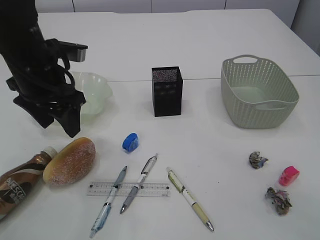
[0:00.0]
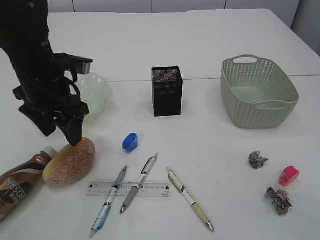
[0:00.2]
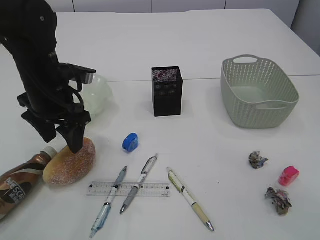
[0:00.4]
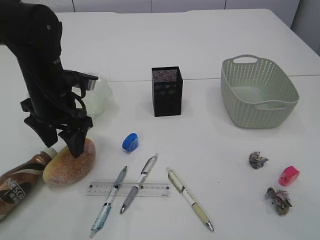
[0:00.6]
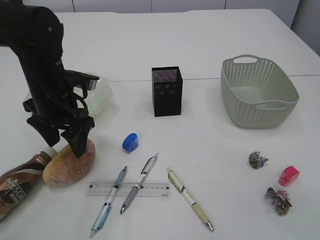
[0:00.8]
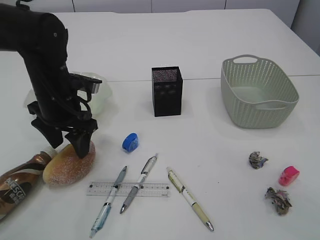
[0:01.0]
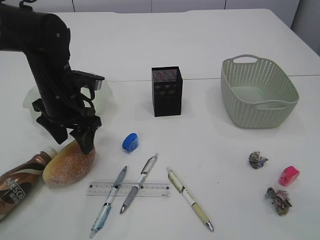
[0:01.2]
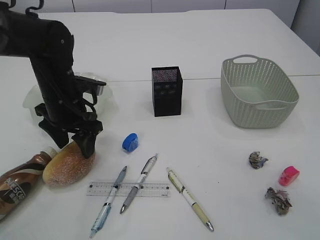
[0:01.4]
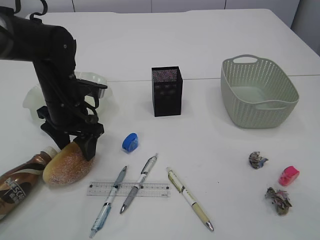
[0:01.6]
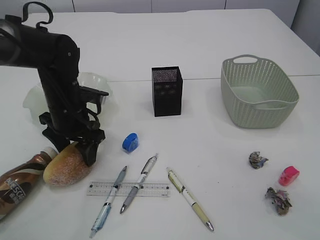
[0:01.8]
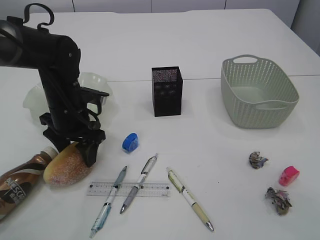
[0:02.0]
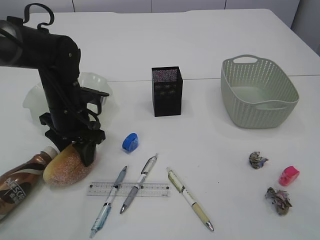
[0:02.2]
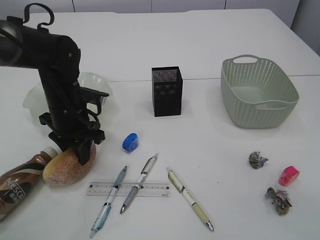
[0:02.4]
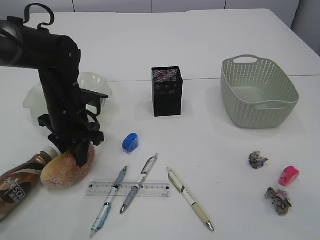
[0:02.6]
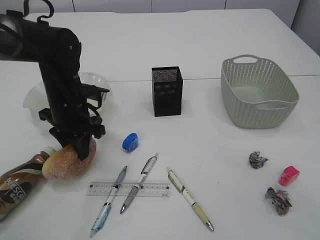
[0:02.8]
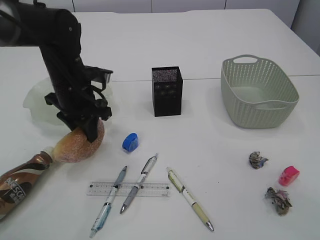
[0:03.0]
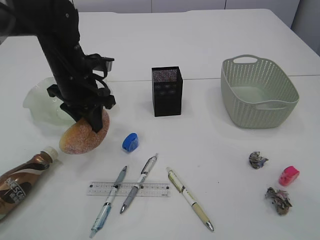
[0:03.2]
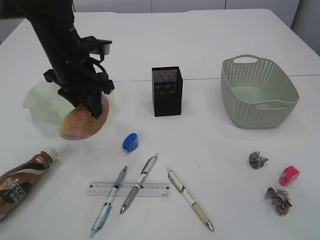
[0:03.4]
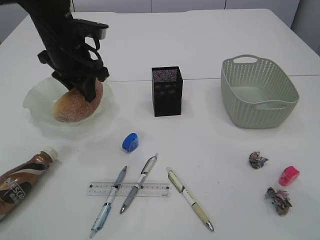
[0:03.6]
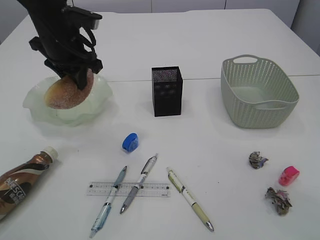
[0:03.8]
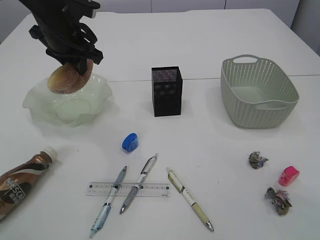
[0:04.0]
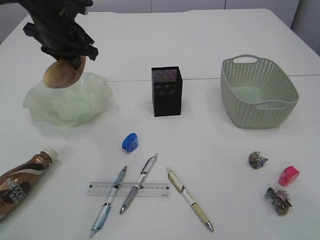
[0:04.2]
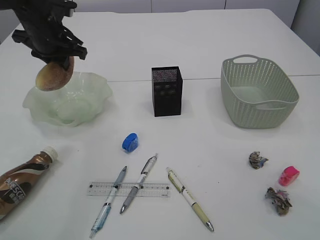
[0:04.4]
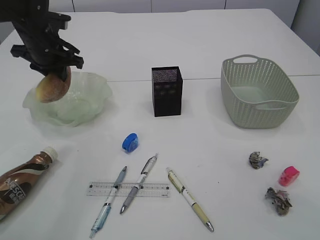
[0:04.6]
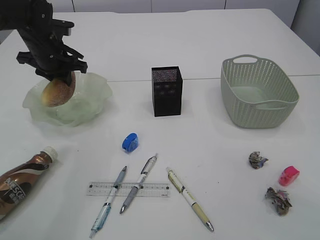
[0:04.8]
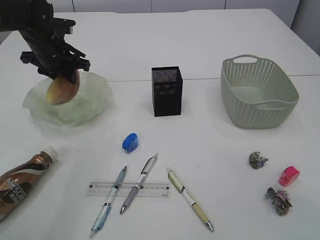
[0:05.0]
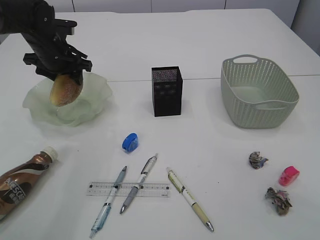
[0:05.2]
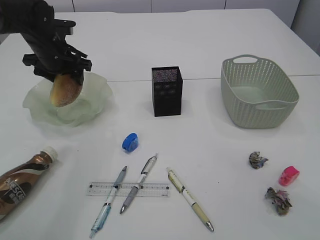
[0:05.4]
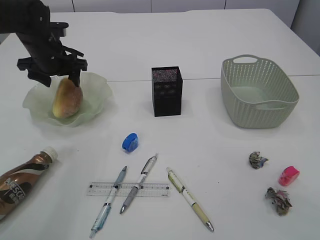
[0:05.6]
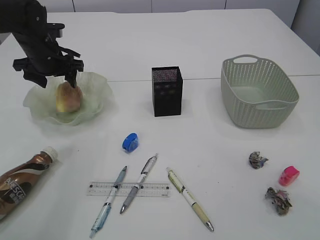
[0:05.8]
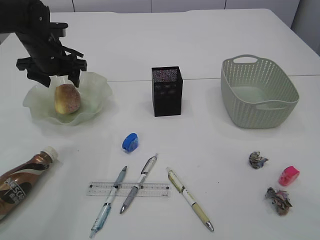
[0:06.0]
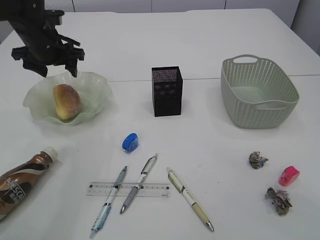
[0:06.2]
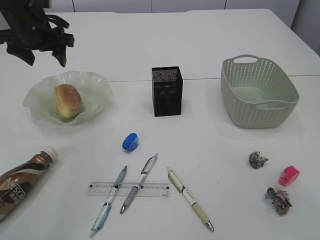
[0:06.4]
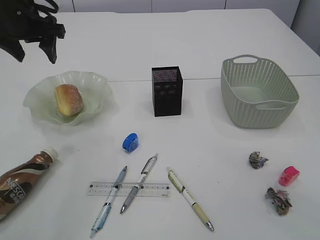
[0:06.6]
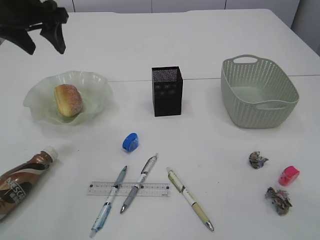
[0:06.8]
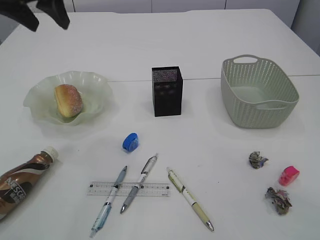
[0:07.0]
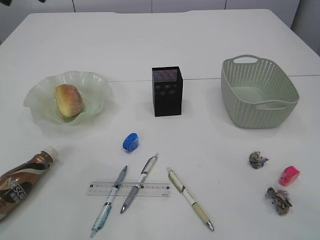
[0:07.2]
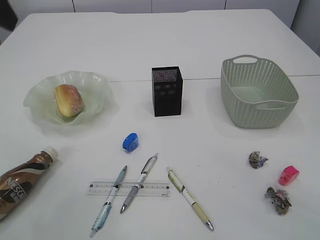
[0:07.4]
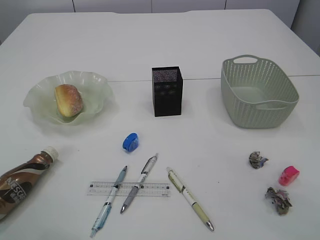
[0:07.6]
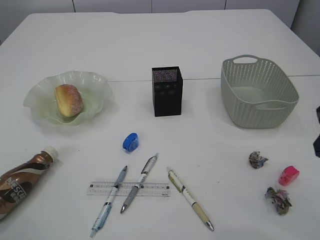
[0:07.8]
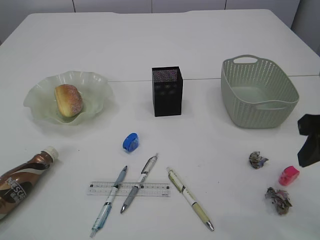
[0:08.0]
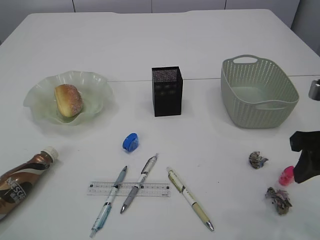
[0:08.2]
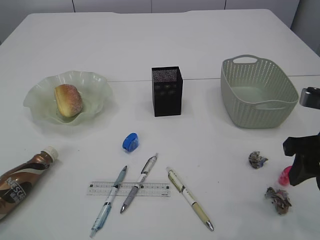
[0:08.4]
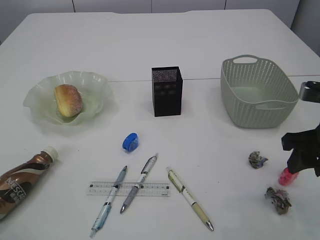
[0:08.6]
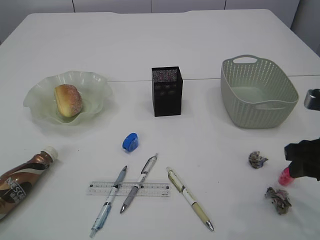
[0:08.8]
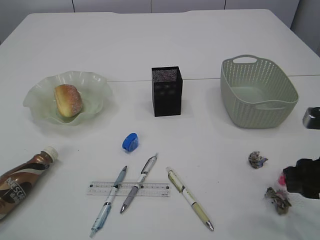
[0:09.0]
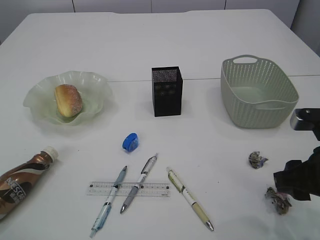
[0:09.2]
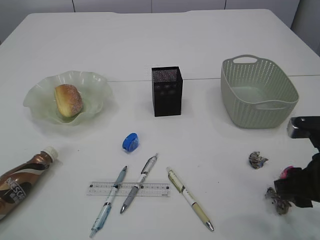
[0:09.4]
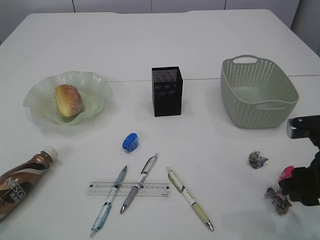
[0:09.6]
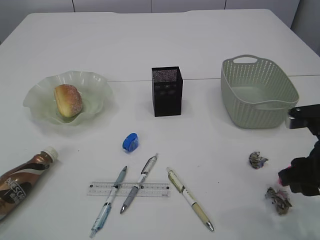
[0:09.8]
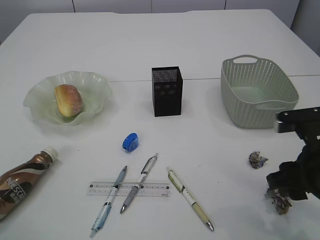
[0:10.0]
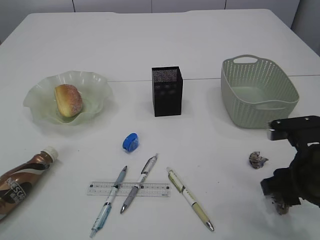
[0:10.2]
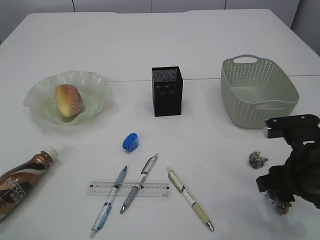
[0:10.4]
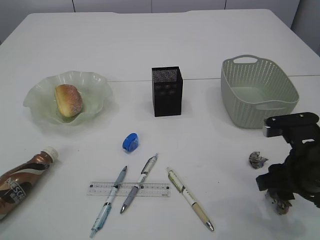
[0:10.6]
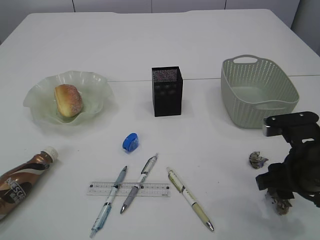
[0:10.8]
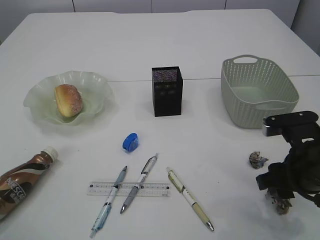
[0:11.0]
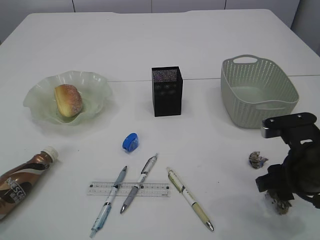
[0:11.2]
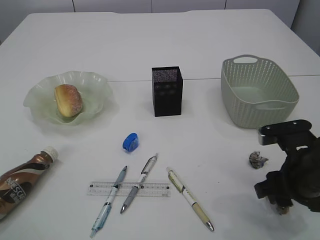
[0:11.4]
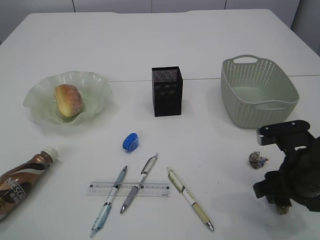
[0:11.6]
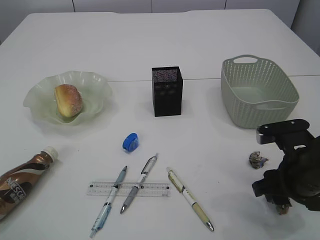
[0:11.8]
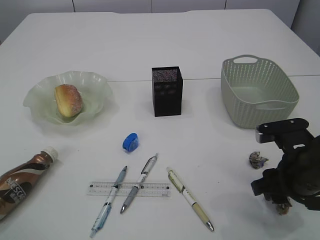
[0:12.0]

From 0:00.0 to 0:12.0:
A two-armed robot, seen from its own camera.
Step, from 0:03.6 to 0:06.6: place the bread in the plate.
From 0:00.0 to 0:01.6: The left gripper heads downward, covering approximately 10 cm.
From 0:01.6 to 0:03.0: The left gripper closes.
From 0:03.0 to 0:04.4: The left gripper moves upward, forward and to the left, approximately 10 cm.
From 0:04.4 to 0:06.0: The left gripper is displaced downward by some 5 cm, and opens.
From 0:06.0 to 0:07.6: The left gripper shifts about 35 cm backward and upward.
From 0:07.6 to 0:09.0: The right gripper is displaced downward by about 15 cm.
From 0:09.0 to 0:10.4: The grippers stay close to where they were, moving slightly.
From 0:10.4 to 0:12.0: The grippers move only a little.

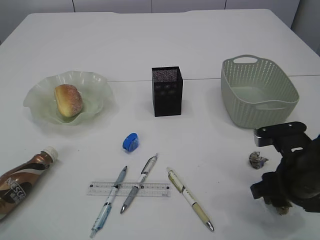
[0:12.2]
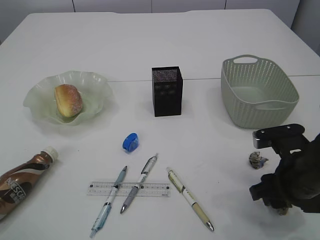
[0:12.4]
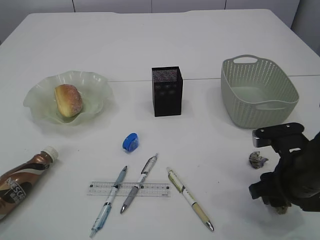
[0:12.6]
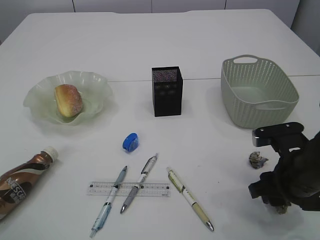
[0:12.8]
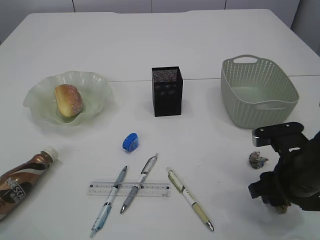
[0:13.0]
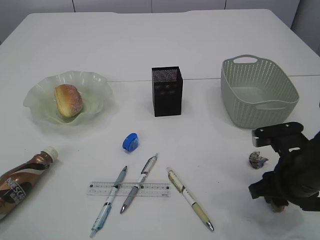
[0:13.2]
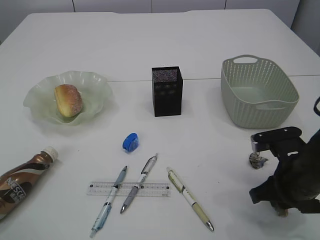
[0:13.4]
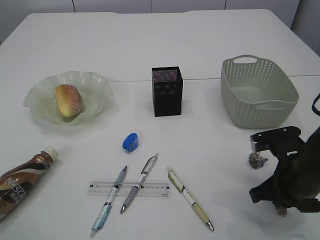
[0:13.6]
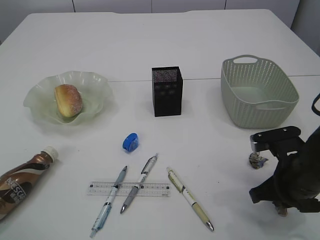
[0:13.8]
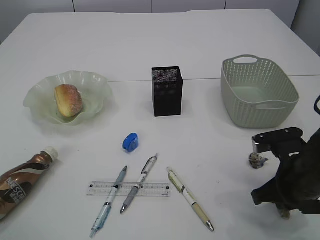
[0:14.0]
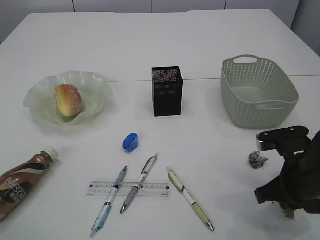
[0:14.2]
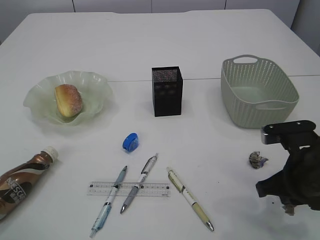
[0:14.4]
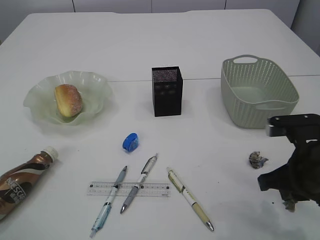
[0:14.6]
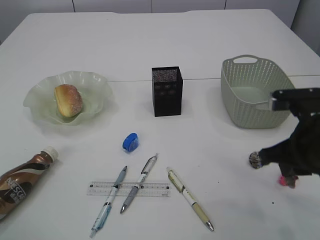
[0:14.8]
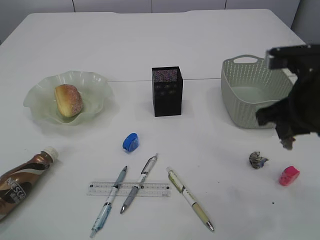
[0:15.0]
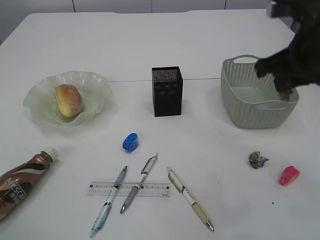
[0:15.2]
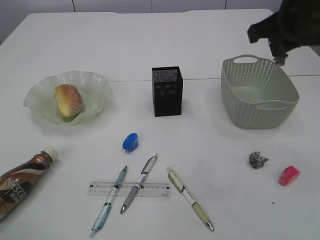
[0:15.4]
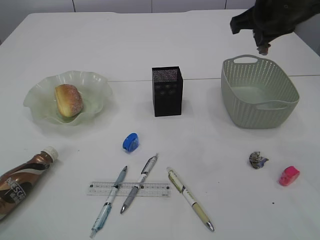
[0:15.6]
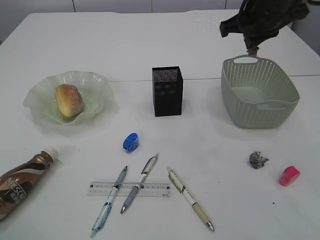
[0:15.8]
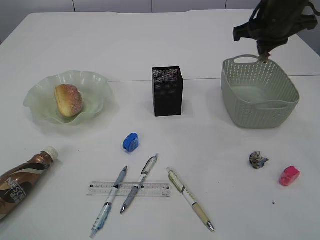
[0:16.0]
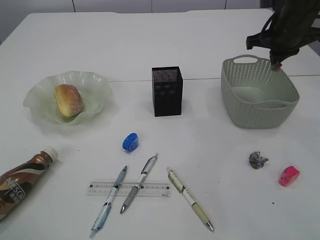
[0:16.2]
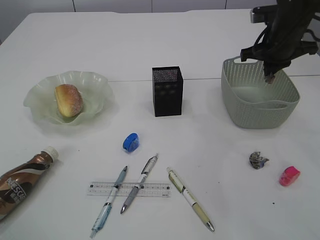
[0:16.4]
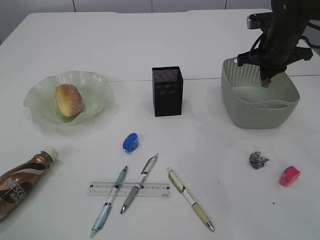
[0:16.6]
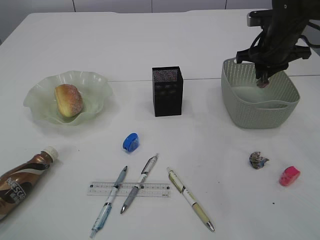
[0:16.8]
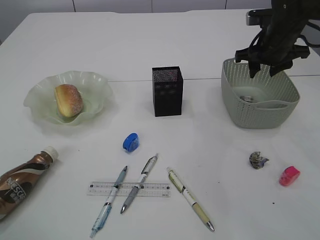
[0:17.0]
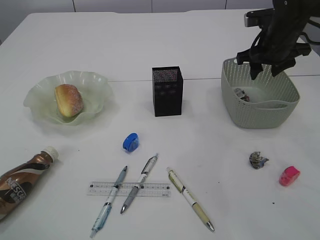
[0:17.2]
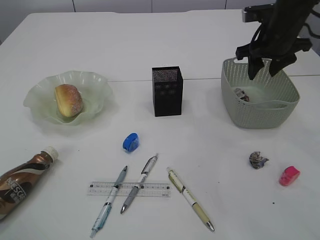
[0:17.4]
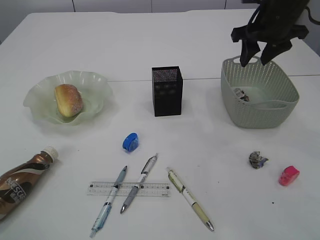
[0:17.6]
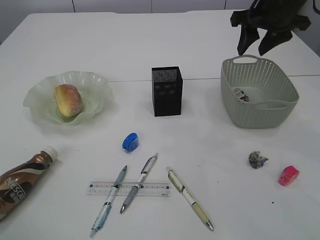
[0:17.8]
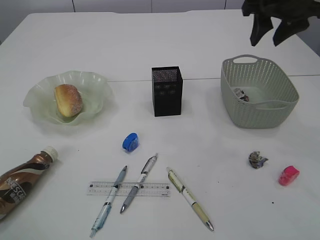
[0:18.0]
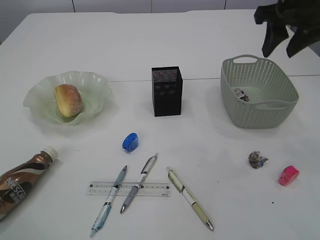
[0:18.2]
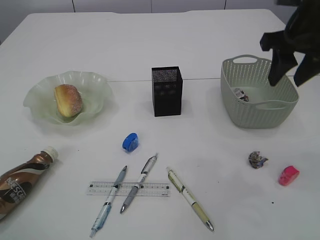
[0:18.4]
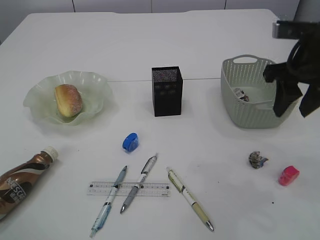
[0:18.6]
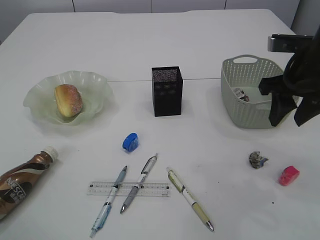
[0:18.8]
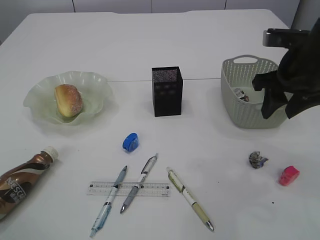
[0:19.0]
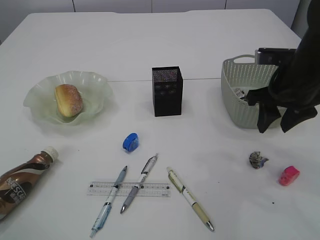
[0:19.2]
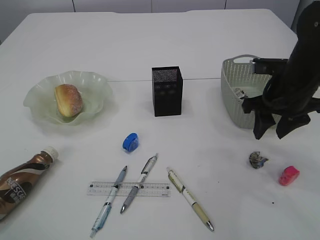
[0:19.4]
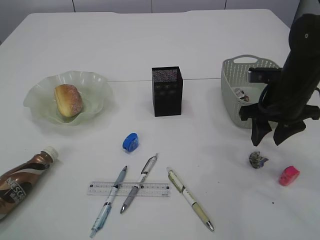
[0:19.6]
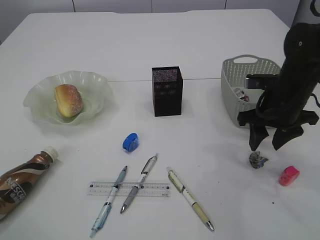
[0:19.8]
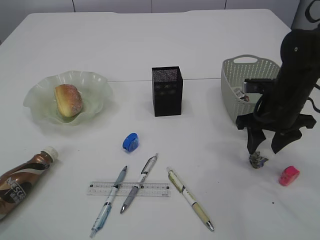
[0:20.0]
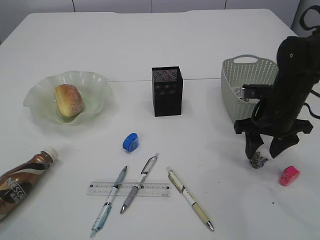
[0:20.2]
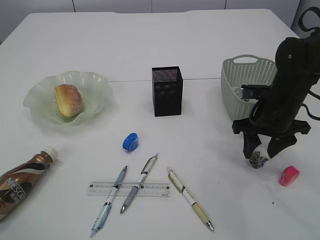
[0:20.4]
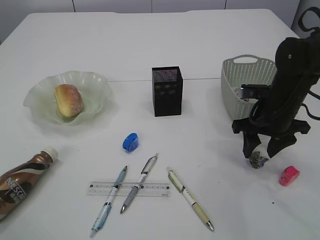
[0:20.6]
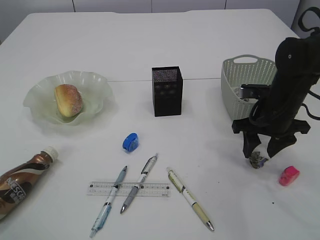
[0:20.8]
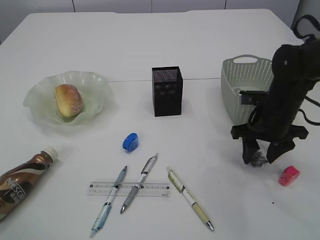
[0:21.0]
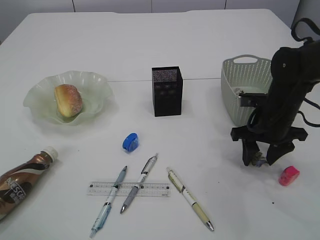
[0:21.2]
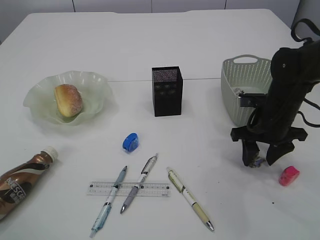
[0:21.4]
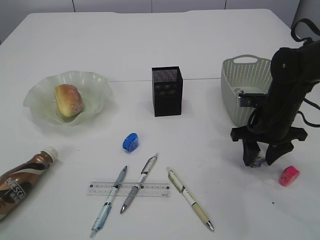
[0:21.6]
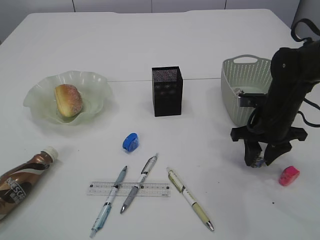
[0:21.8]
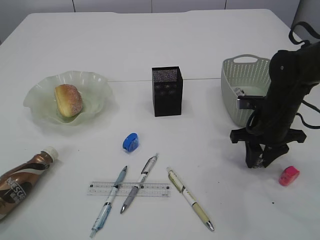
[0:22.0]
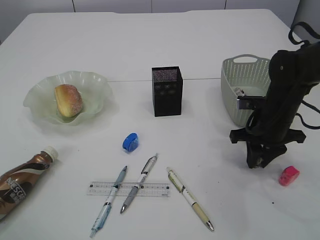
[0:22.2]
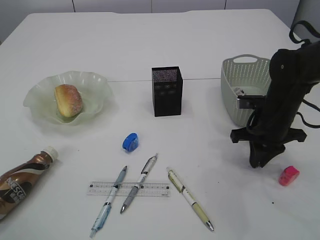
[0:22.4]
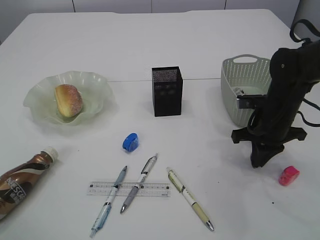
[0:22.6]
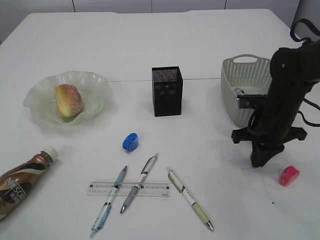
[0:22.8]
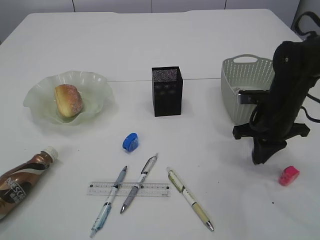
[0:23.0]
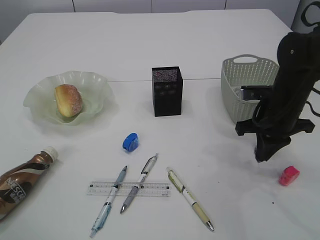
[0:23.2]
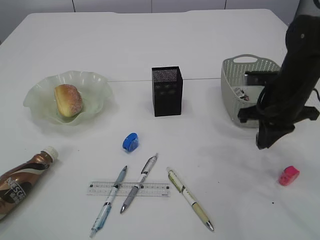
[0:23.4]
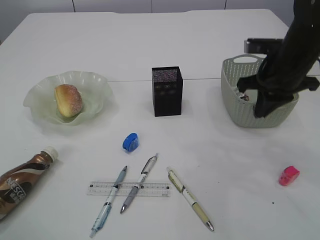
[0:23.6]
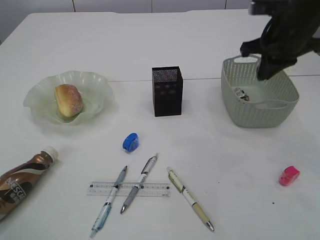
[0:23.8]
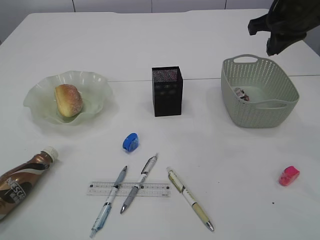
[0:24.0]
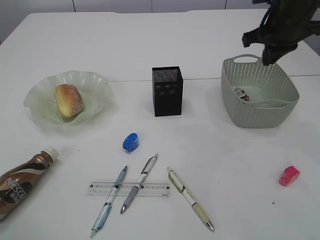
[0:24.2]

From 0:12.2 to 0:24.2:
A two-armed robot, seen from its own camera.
Step, from 0:12.2 to 0:14.8: Pick up the waste paper.
Step, from 0:15.0 to 0:18.0: Place the waste paper in the basket.
Step, from 0:18.2 to 0:23.4: Pick up the waste paper.
From 0:12.2 to 0:13.8: The right gripper closes its fingers.
From 0:13.8 to 0:15.2: The right gripper moves upward, roughly 20 cm.
From 0:15.2 to 0:16.6: The right gripper goes some 20 cm forward and downward.
From 0:16.6 to 0:18.2: The right gripper is displaced upward and backward by approximately 15 cm, and opens up.
From 0:18.2 to 0:19.8: The right gripper goes approximately 15 cm downward.
From 0:19.8 to 0:21.2: The grippers stay close to where they were, moving slightly.
From 0:21.2 to 0:22.6: The right gripper closes.
From 0:22.6 to 0:24.2: The right gripper goes approximately 15 cm upward.
